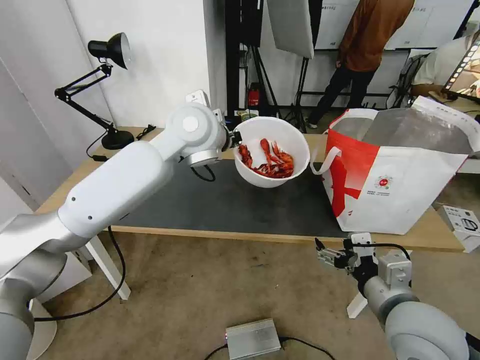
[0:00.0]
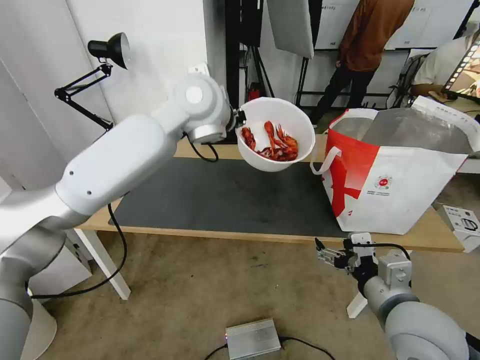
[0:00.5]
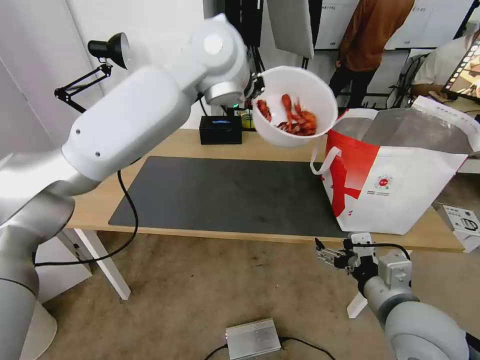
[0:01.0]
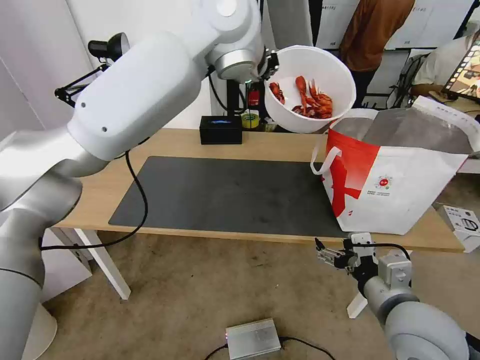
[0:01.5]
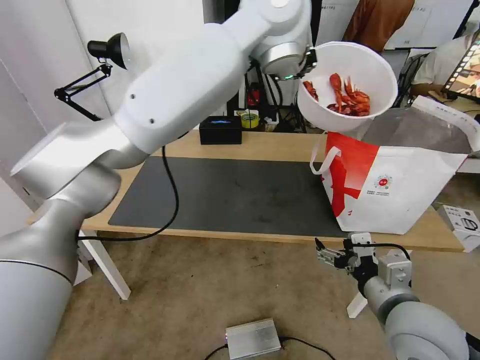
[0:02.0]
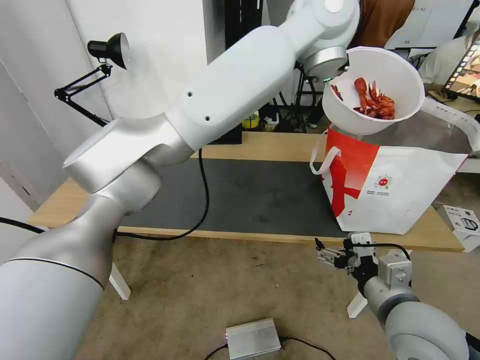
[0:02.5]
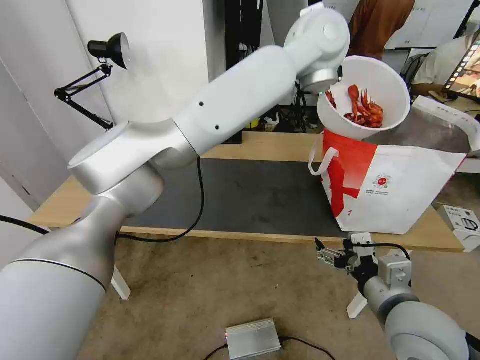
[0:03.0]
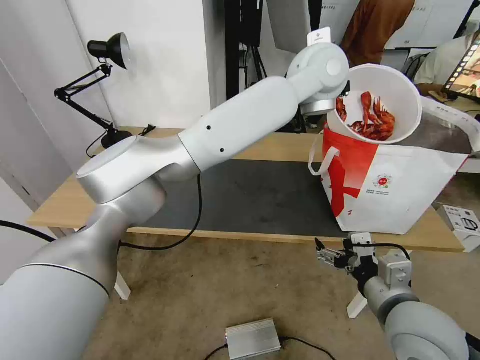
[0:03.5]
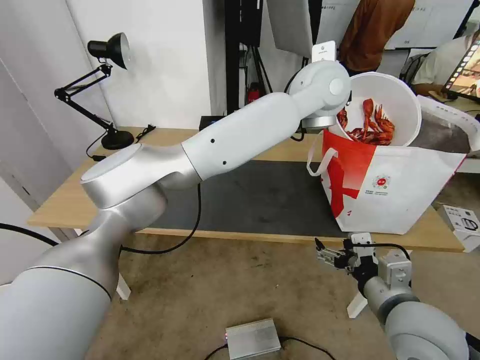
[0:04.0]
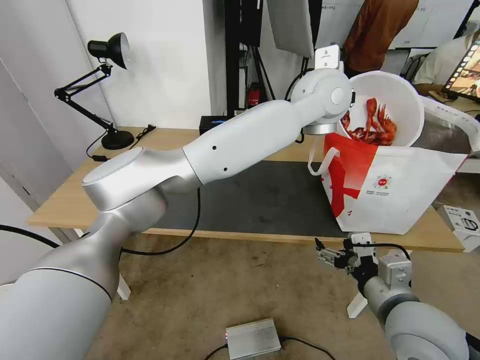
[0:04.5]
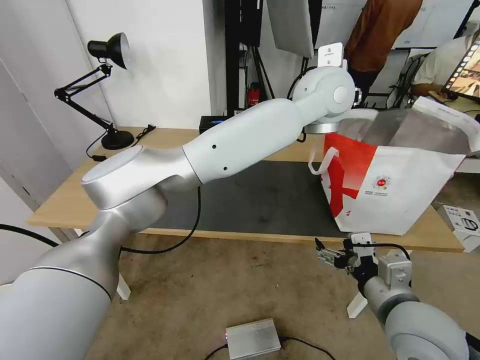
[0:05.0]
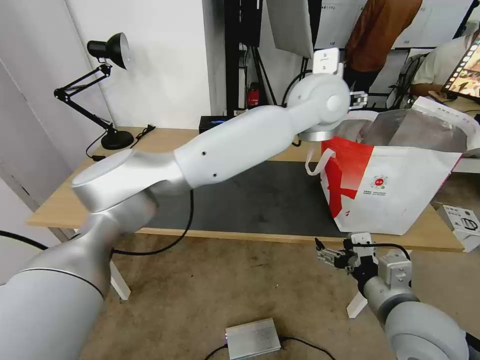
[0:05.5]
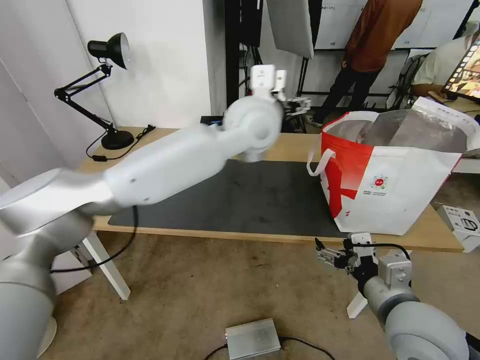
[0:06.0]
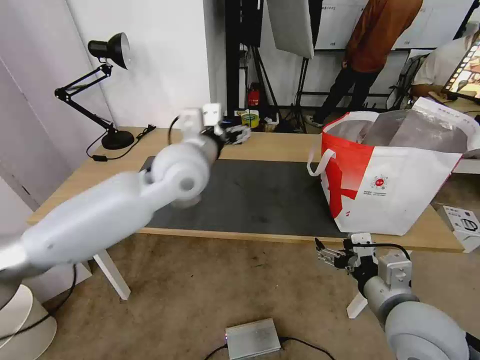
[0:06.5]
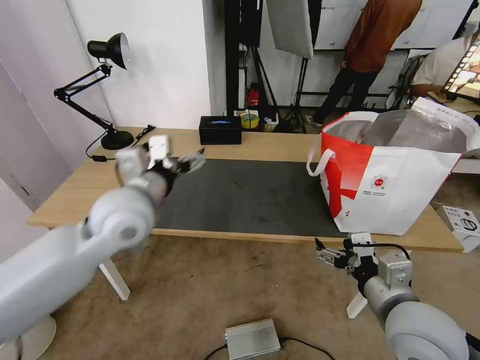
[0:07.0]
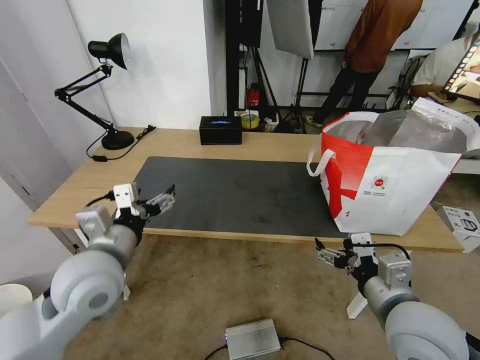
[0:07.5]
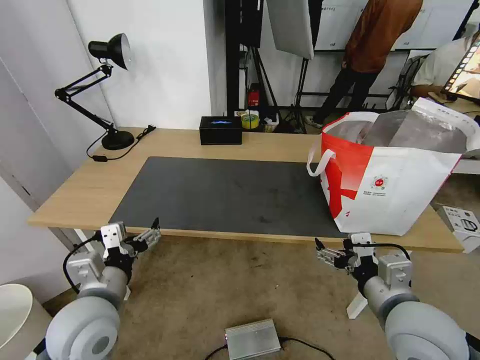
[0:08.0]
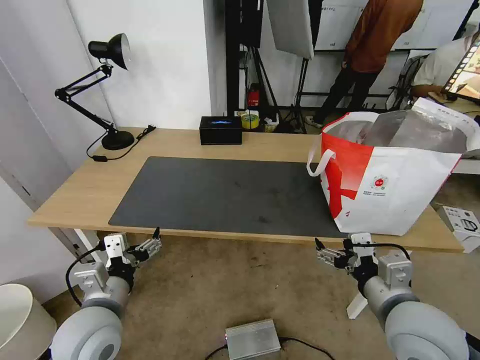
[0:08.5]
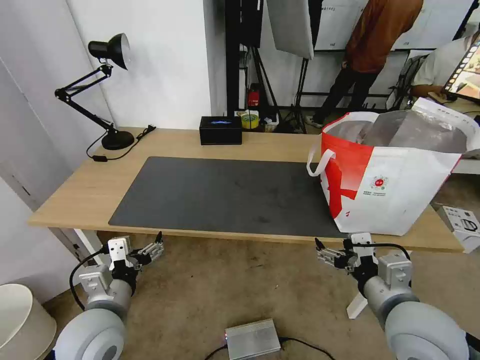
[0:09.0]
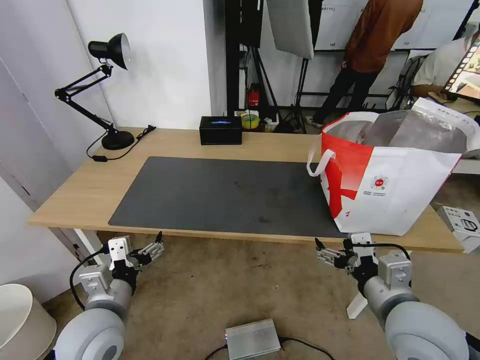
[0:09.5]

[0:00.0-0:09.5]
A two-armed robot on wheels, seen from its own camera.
Task of the whole recording: Pick up the trash from the table and place it into the takeout bag.
0:00.0 to 0:02.0: The left gripper heads upward and to the right, covering about 20 cm.
0:02.0 to 0:04.0: The left gripper is displaced downward and to the right by about 15 cm.
0:04.0 to 0:05.5: The left gripper opens.
0:05.5 to 0:07.5: The left gripper goes roughly 50 cm to the left, backward and downward.
0:07.5 to 0:09.5: The left gripper travels downward and backward by some 10 cm.
